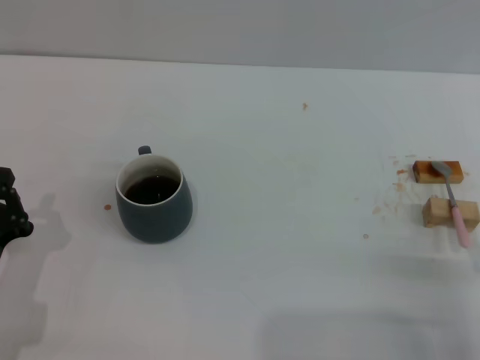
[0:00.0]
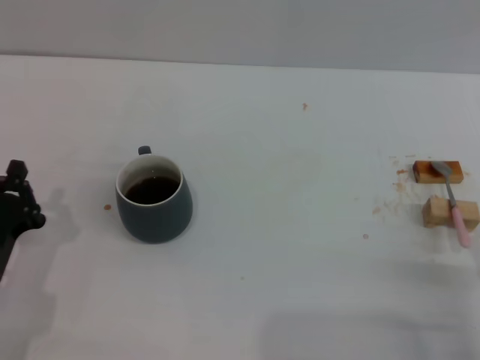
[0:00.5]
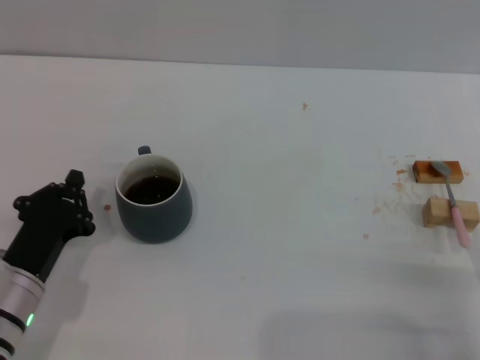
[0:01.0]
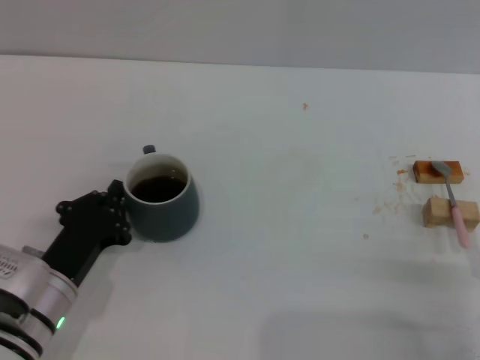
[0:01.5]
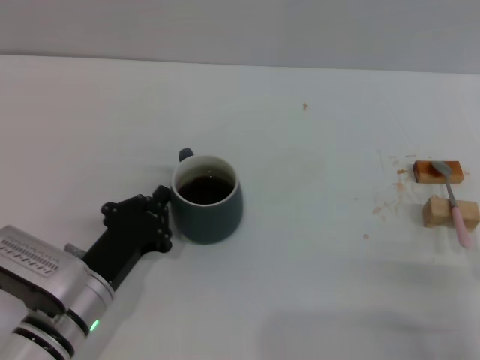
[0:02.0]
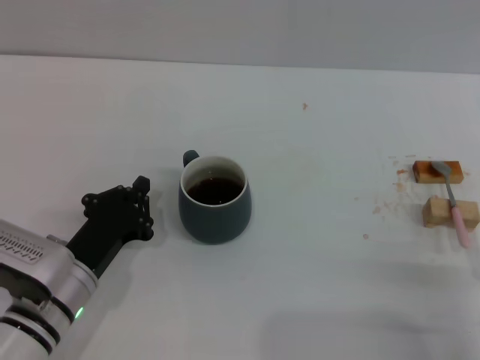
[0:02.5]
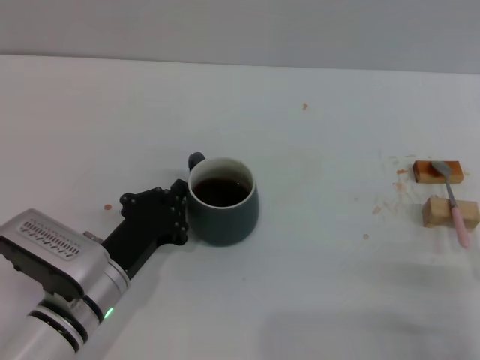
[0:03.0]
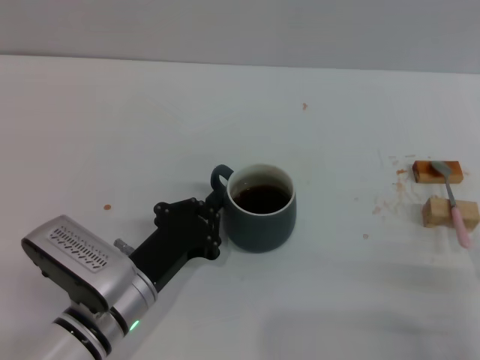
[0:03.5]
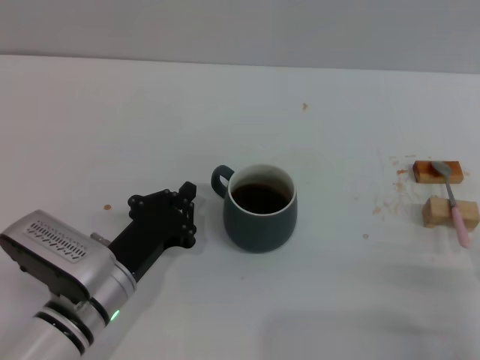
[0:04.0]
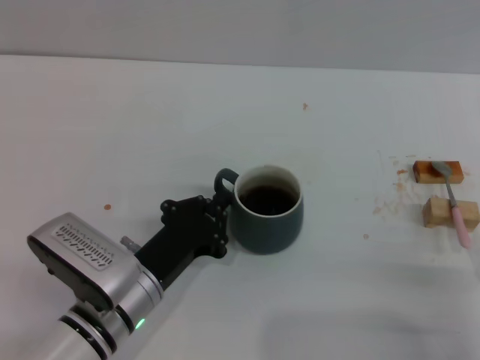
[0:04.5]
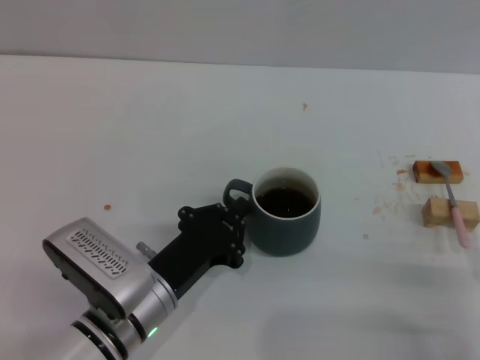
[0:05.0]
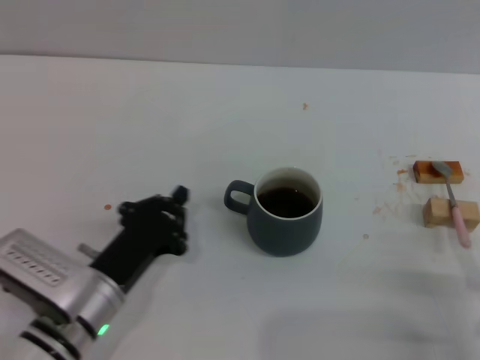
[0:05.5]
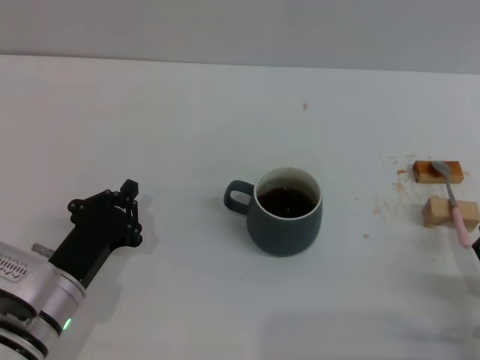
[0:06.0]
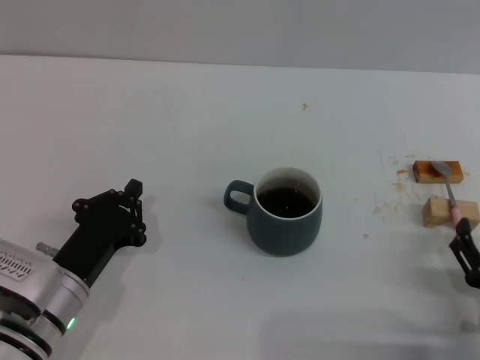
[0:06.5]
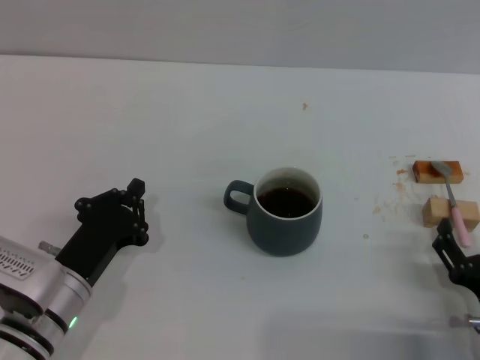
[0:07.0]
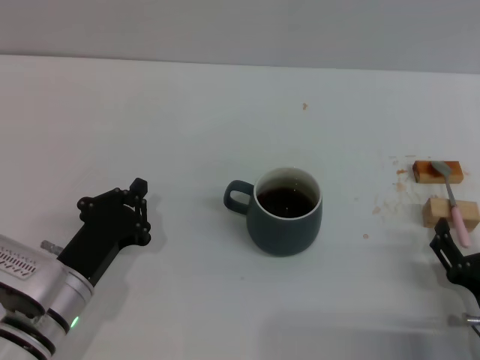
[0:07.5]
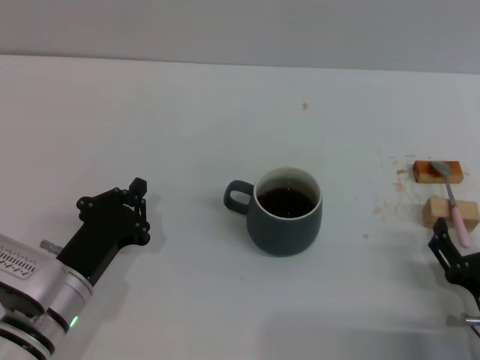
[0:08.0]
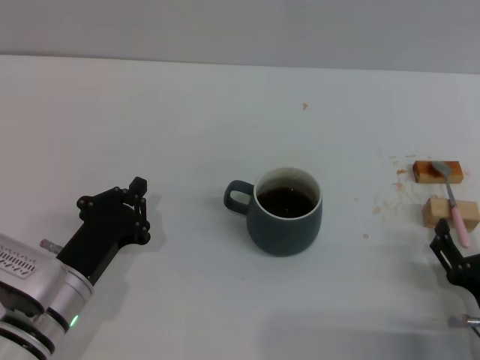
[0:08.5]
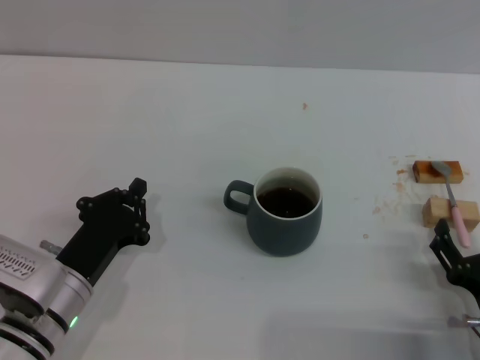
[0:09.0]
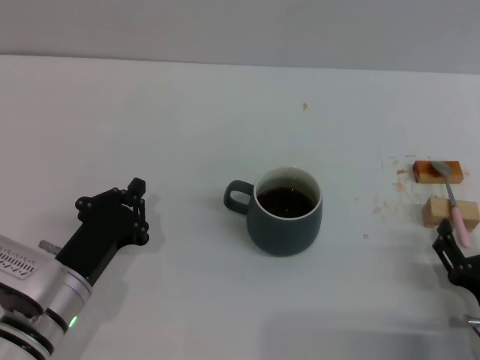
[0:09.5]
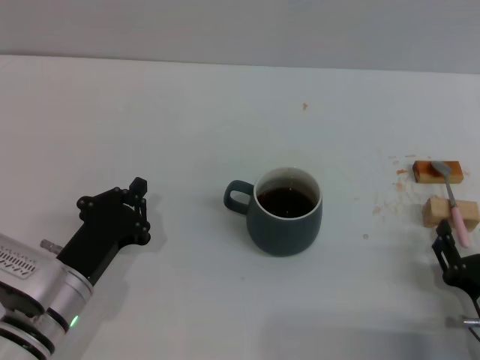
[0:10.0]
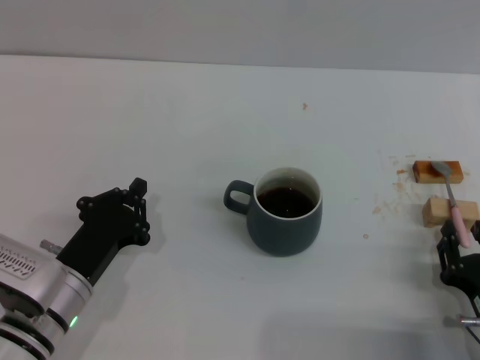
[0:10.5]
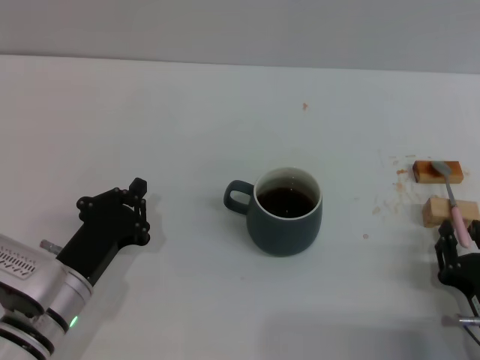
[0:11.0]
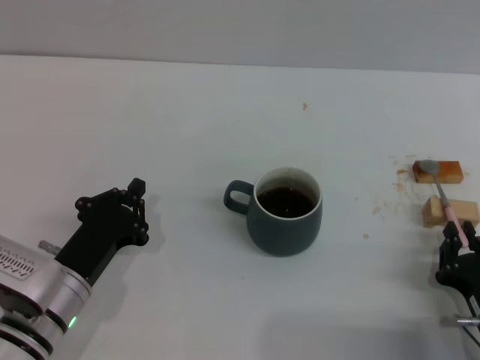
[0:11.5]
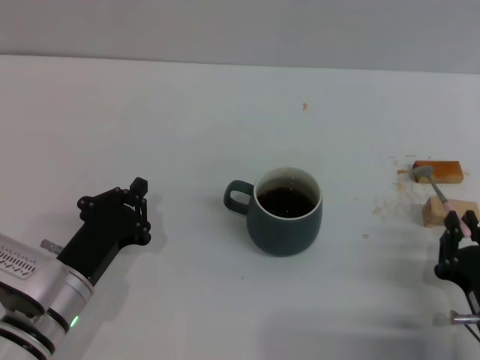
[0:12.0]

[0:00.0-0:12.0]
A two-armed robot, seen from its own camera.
Task of the whole recording: Move the grey cup to the center, lift the pink spoon, stir it three times in the cup, and put the spoon into the cup.
Step, 0:00.0 to 0:05.0: Move the cup with coffee to the center of view with the left gripper.
0:00.0 to 0:02.0: The left gripper heads to the right, covering about 10 cm.
0:02.0 to 0:06.0: The grippers make only small movements.
0:06.0 to 0:08.0: The grippers move only a little.
0:08.0 to 0:10.0: The two grippers keep their place.
0:10.0 to 0:12.0: The right gripper closes.

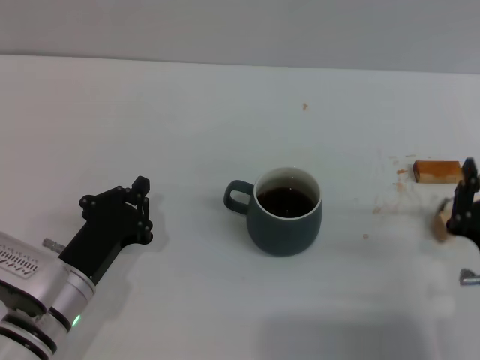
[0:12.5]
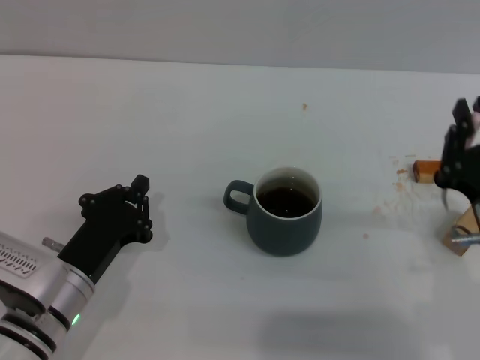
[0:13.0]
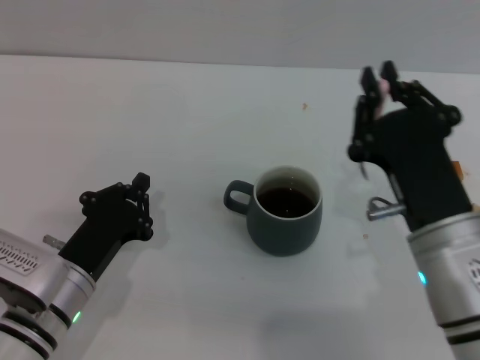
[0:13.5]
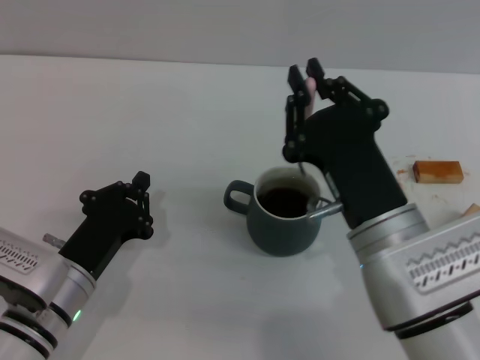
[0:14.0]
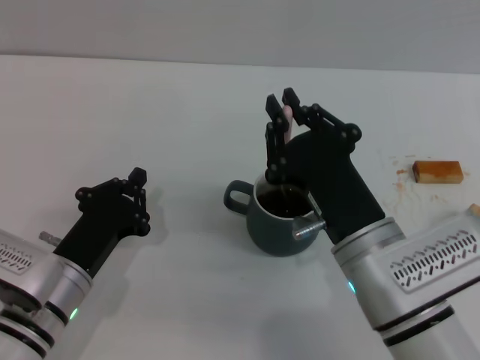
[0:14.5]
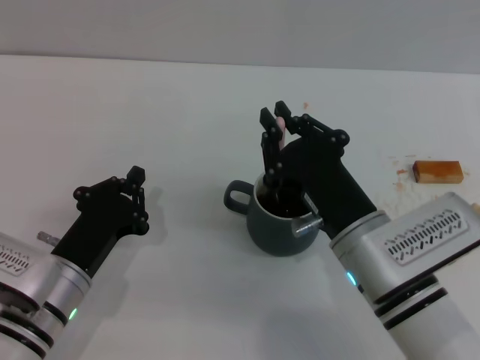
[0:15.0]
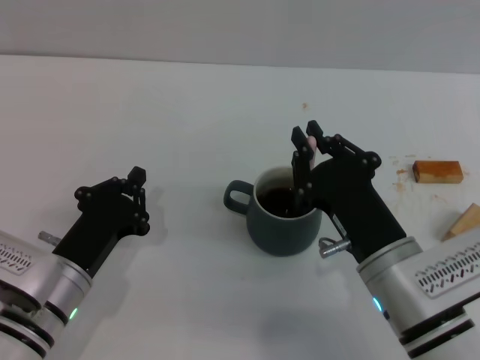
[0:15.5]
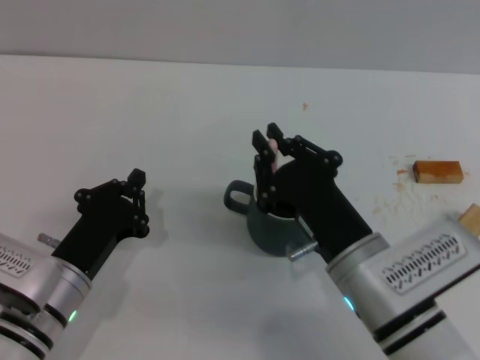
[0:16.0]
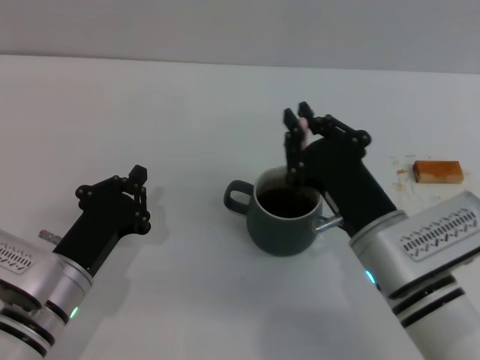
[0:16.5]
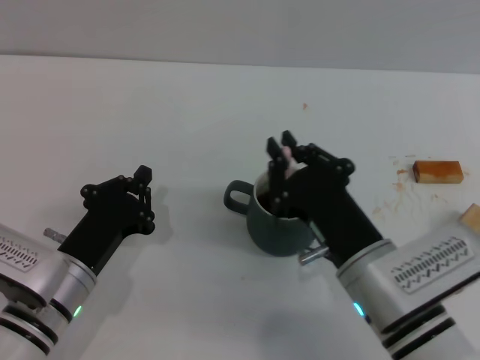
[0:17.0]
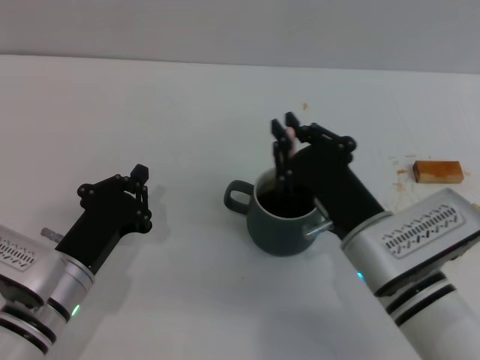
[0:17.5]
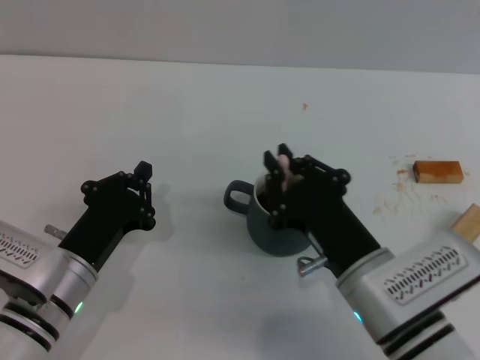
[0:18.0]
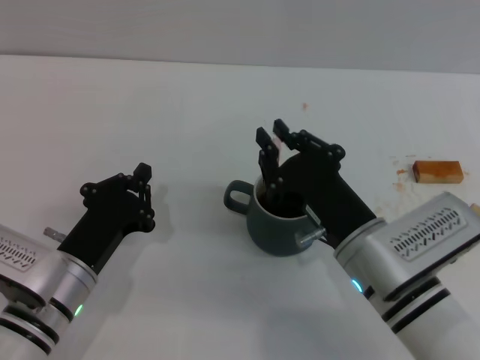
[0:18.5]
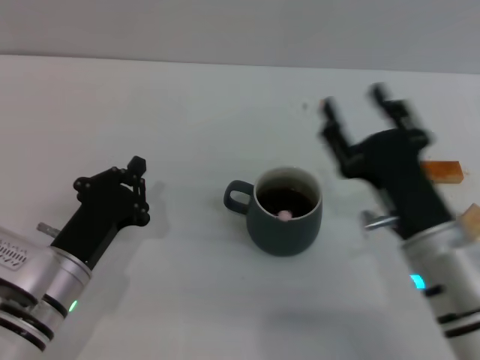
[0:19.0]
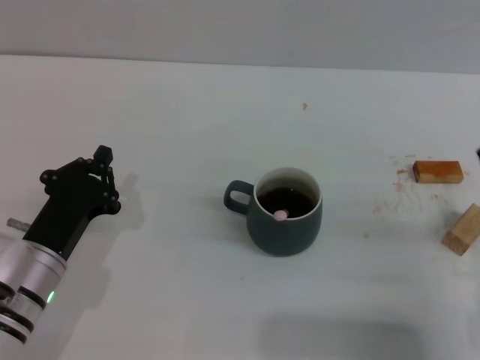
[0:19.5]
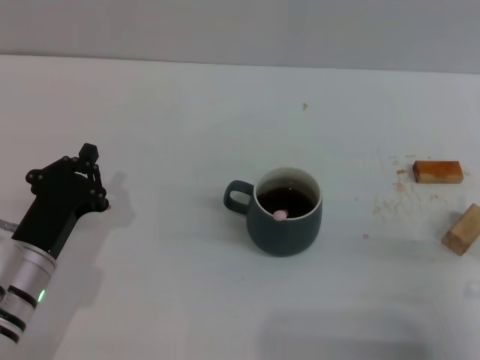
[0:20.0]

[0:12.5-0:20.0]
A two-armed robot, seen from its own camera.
Task of the whole recording: Move the grey cup to the center, lift the pink spoon, stir it three times in the cup, and put the spoon into the cup.
Step, 0:13.0 to 0:18.5: Stir the coffee in the cup with the right gripper.
0:12.5 to 0:14.5: The right gripper is displaced to the left by some 10 cm.
0:14.5 to 0:18.0: The grippers move only a little.
0:18.0 to 0:20.0: The right gripper travels to the right by some 15 cm, and opens its fingers.
